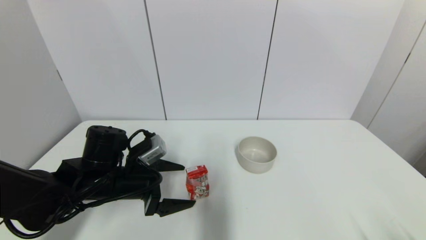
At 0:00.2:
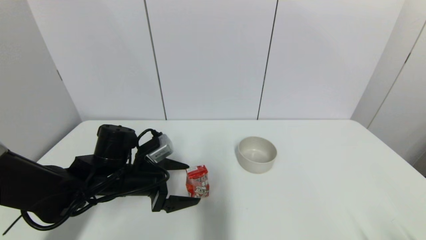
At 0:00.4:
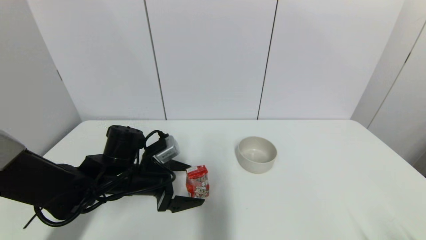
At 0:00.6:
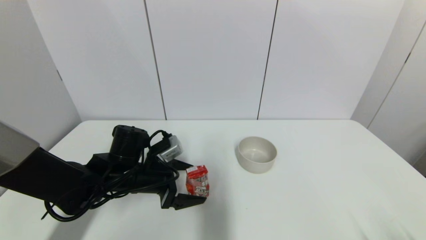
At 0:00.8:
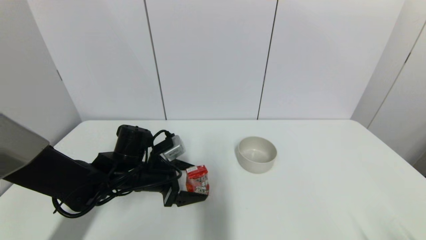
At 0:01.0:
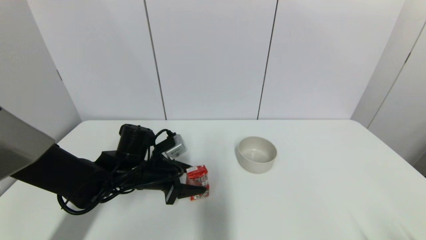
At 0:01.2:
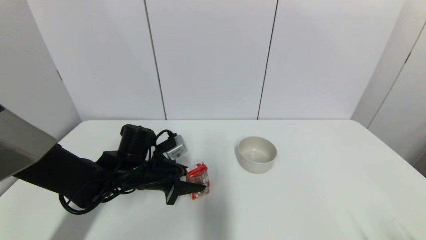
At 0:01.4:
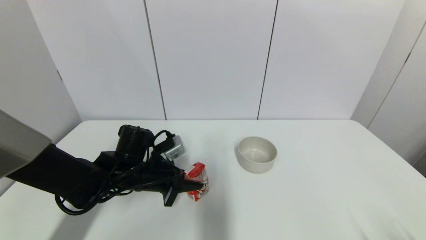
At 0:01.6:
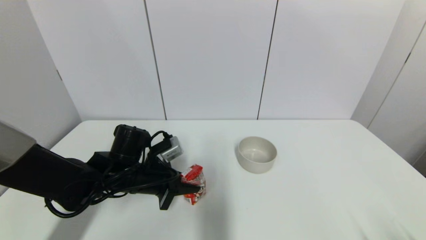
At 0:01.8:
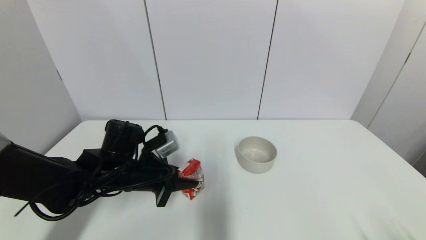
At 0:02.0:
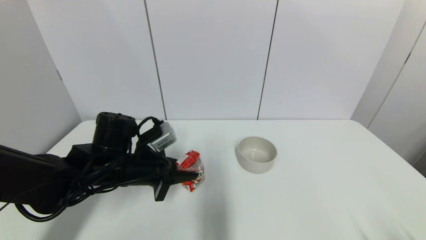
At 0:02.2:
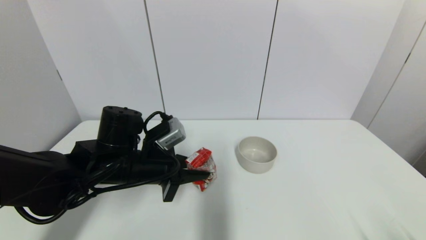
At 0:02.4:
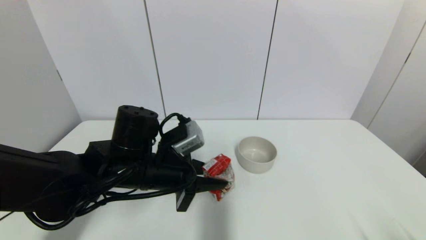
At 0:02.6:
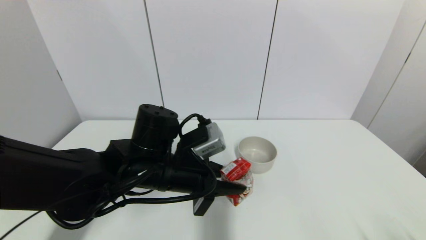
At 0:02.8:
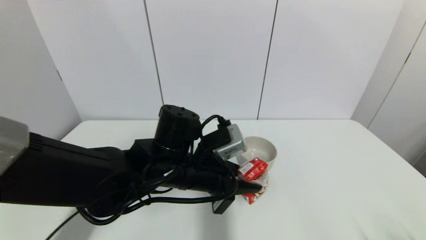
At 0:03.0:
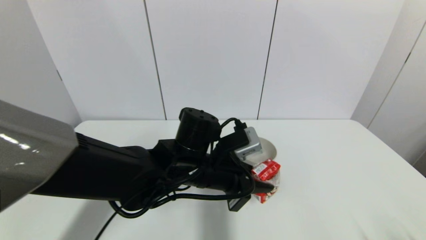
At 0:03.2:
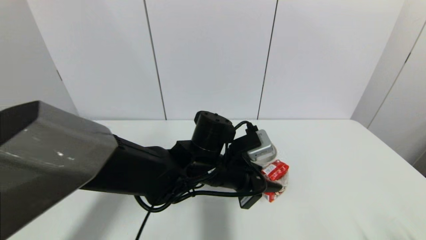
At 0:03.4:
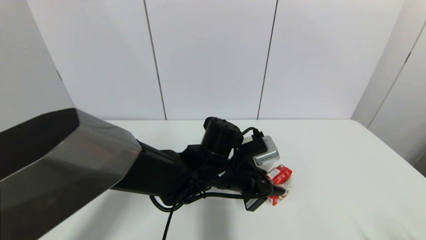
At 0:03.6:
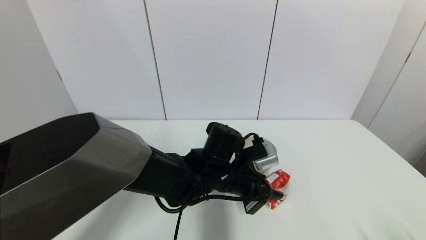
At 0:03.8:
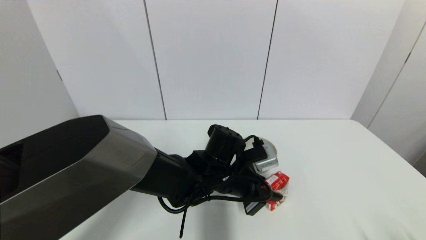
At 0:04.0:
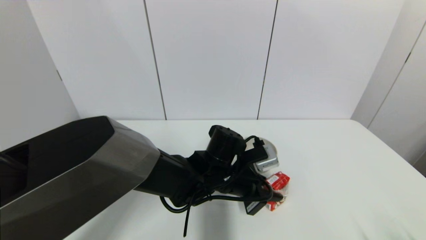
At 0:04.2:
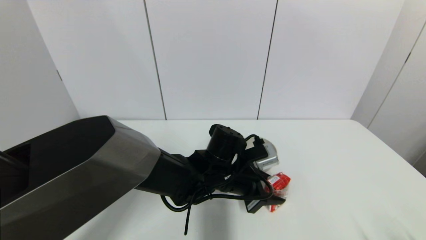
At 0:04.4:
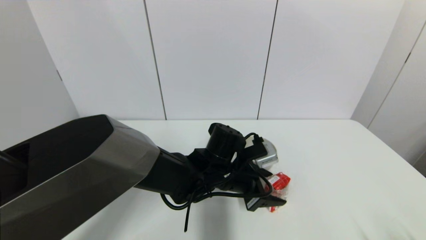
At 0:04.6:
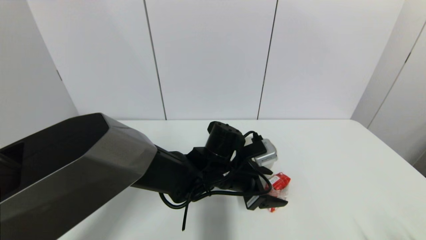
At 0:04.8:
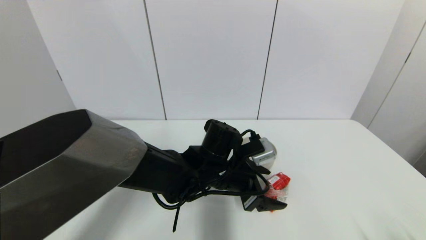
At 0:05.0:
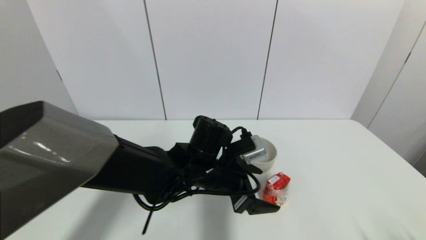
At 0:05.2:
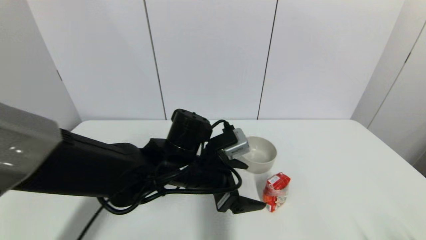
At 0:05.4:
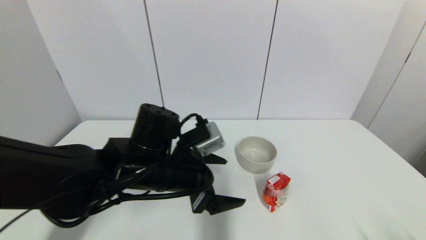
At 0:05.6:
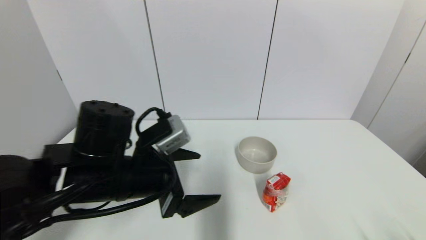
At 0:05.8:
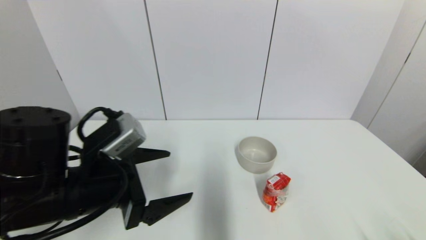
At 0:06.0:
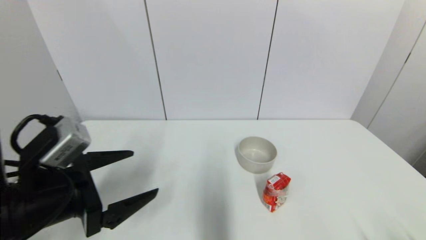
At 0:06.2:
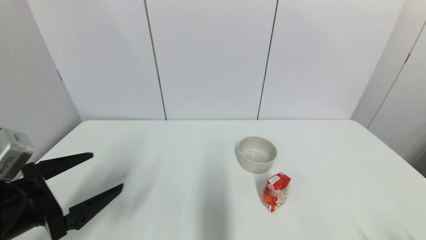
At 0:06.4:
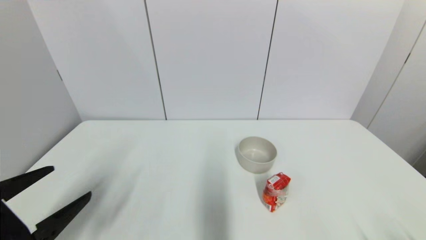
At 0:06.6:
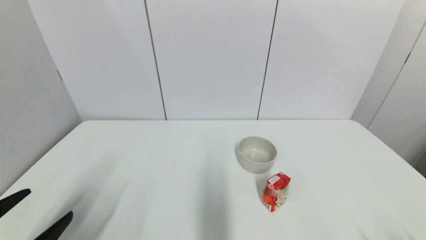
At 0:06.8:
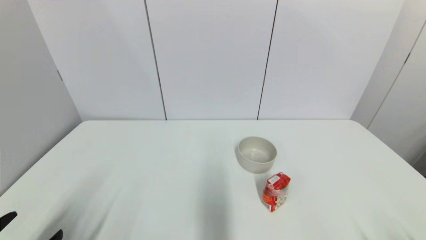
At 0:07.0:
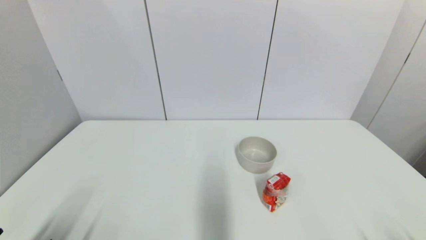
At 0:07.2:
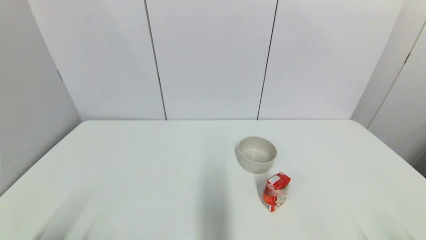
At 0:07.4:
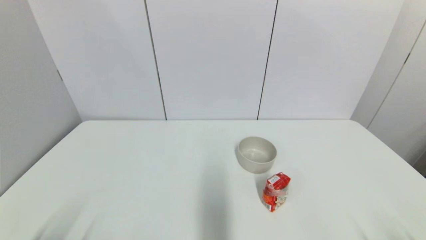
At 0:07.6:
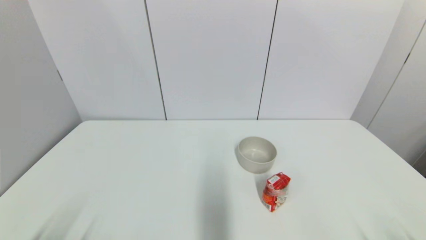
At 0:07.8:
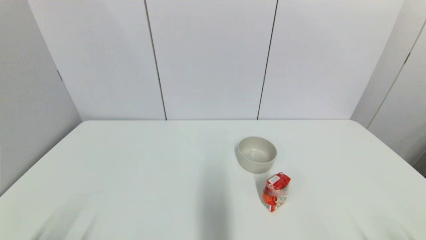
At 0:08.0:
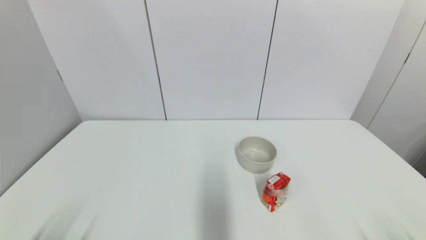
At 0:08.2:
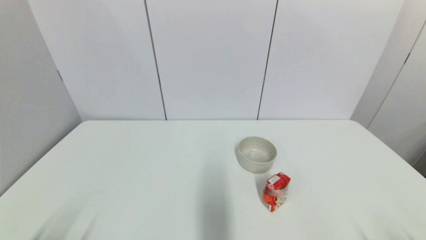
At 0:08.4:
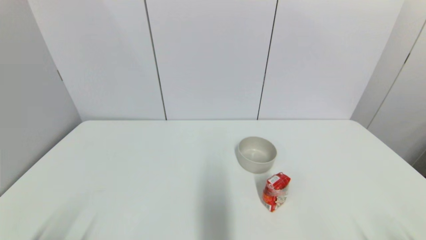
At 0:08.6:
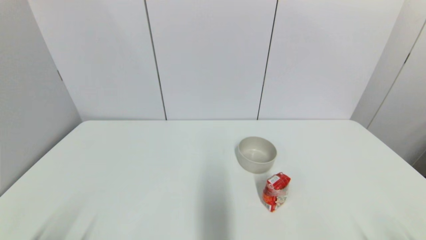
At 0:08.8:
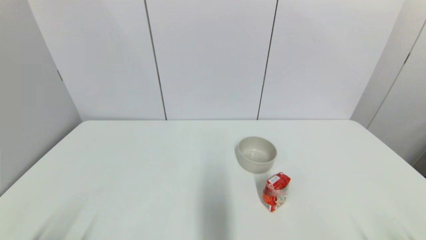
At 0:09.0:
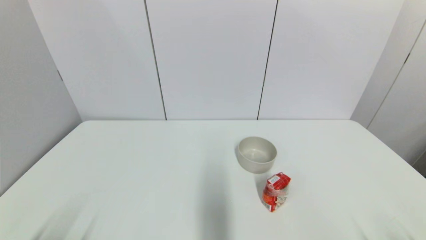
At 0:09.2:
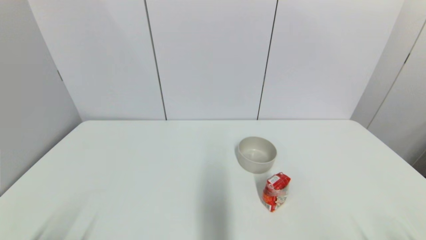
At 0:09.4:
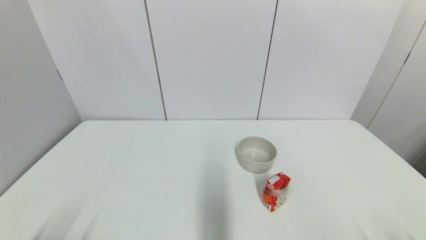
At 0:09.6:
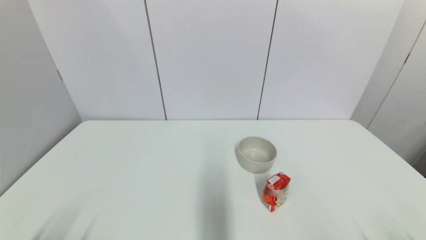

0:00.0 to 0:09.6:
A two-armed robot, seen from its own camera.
Step, 0:01.6 to 0:04.4: Place the wangzai milk on the table with left gripper.
0:00.0 to 0:01.6: The left gripper closes its fingers.
0:01.6 to 0:03.2: The left gripper is displaced to the right by some 15 cm.
0:03.2 to 0:04.8: The left gripper opens.
0:04.8 to 0:06.4: The left gripper travels to the left and backward by approximately 35 cm.
0:06.4 to 0:08.0: The left gripper shifts about 15 cm backward and downward.
0:08.0 to 0:09.6: Both grippers stay put.

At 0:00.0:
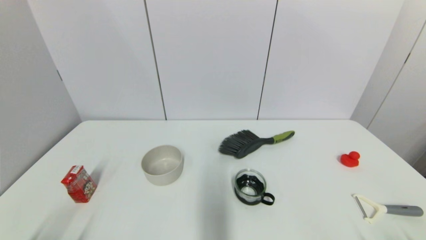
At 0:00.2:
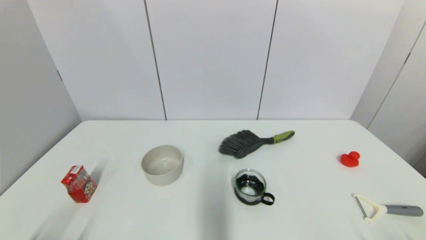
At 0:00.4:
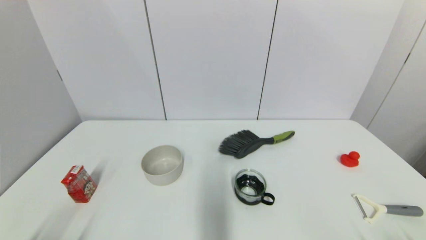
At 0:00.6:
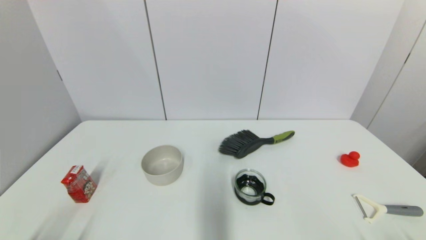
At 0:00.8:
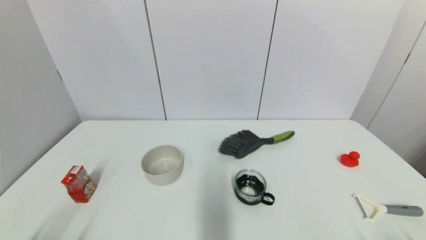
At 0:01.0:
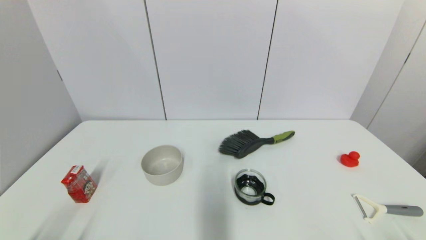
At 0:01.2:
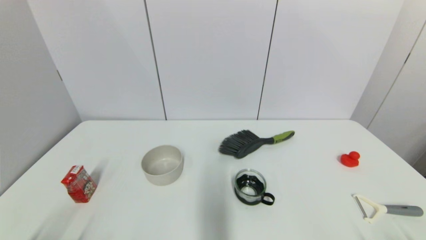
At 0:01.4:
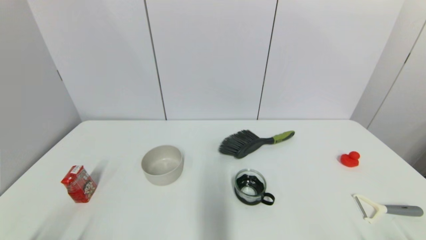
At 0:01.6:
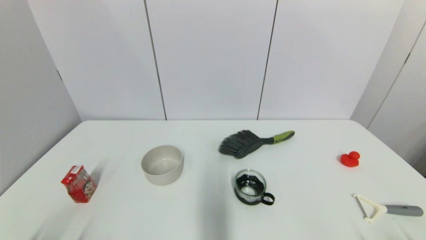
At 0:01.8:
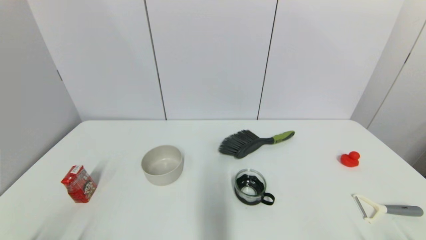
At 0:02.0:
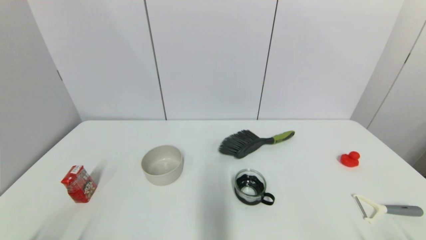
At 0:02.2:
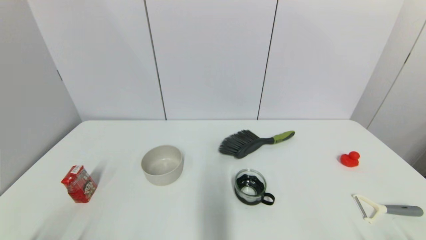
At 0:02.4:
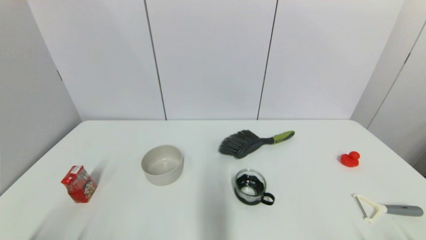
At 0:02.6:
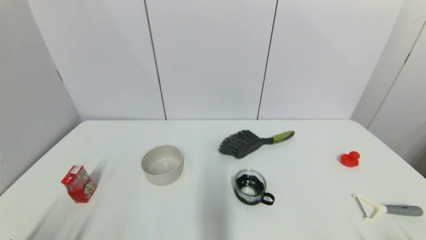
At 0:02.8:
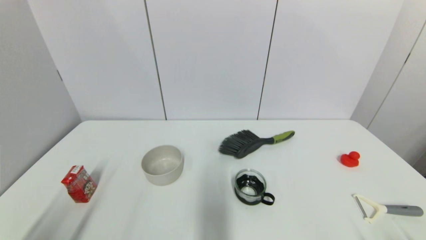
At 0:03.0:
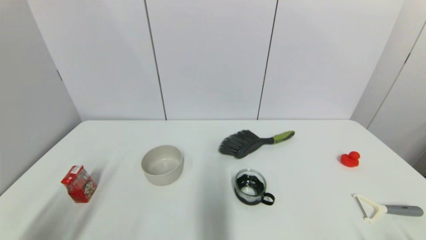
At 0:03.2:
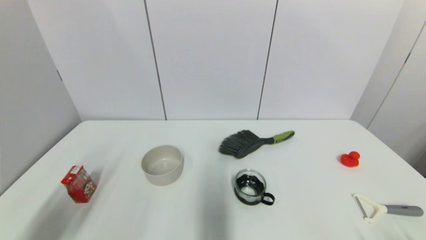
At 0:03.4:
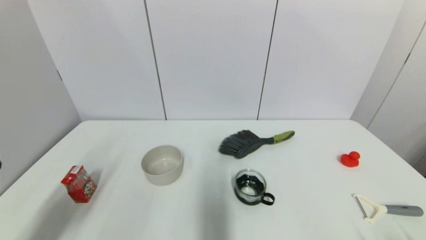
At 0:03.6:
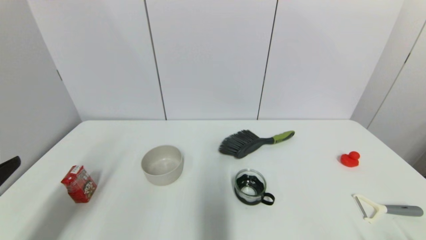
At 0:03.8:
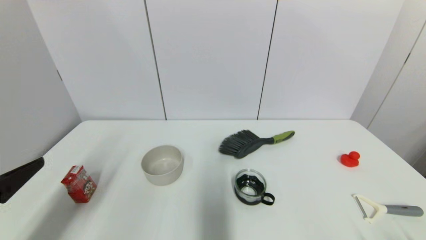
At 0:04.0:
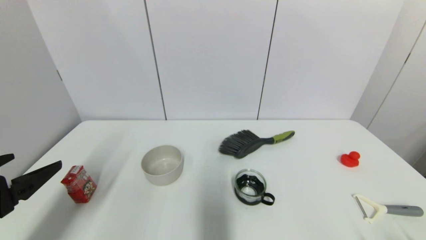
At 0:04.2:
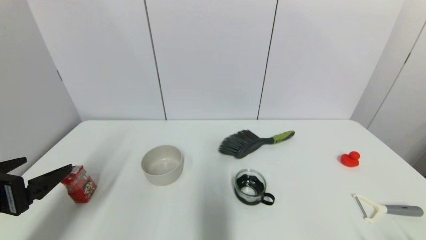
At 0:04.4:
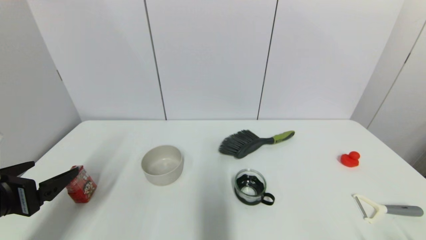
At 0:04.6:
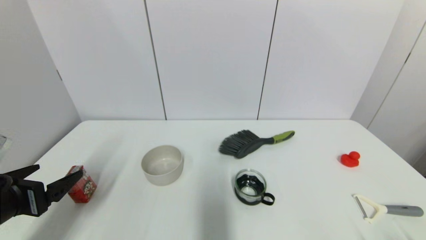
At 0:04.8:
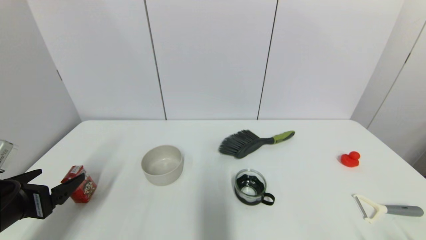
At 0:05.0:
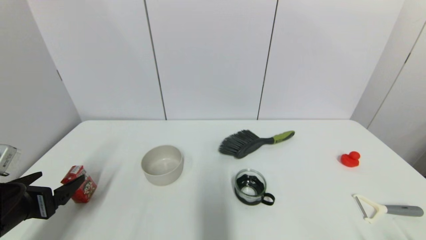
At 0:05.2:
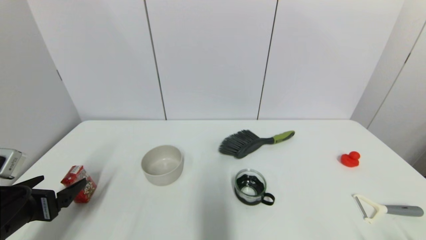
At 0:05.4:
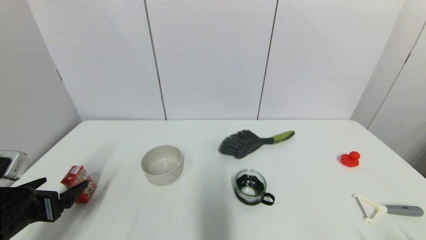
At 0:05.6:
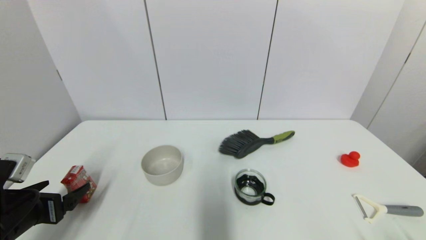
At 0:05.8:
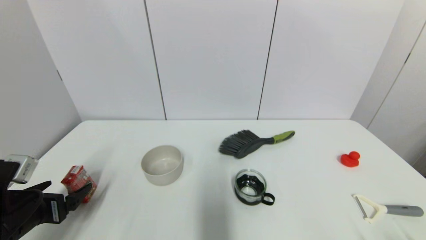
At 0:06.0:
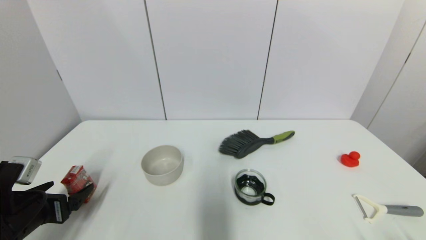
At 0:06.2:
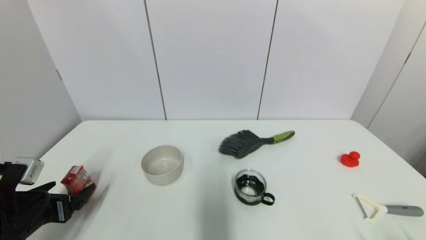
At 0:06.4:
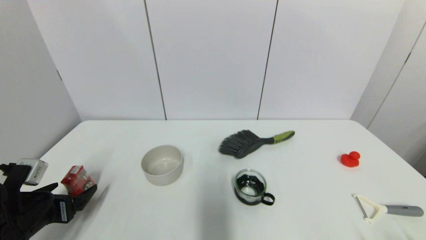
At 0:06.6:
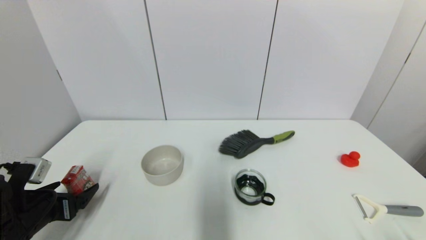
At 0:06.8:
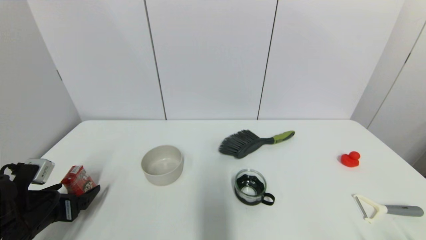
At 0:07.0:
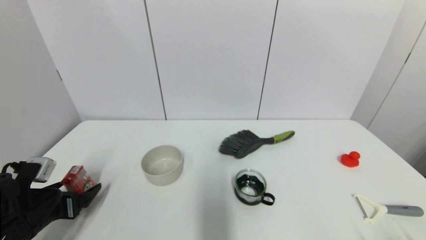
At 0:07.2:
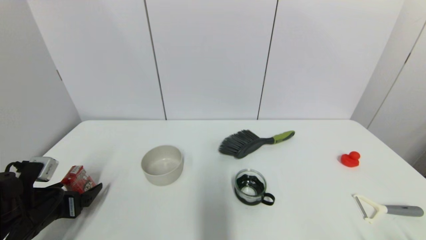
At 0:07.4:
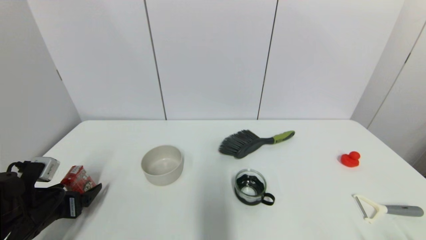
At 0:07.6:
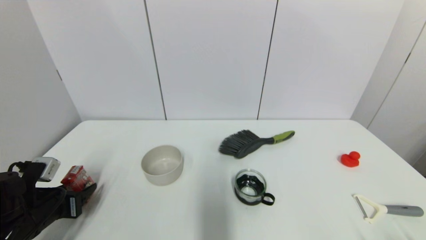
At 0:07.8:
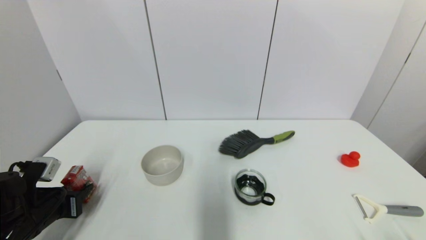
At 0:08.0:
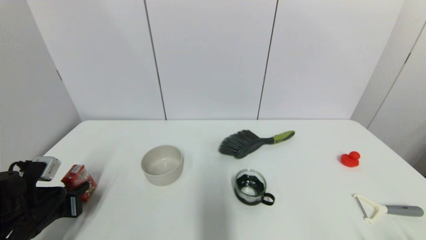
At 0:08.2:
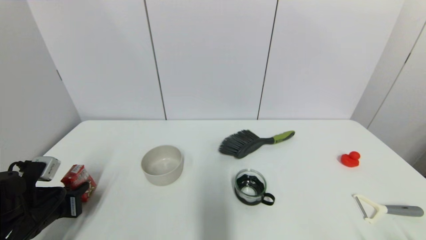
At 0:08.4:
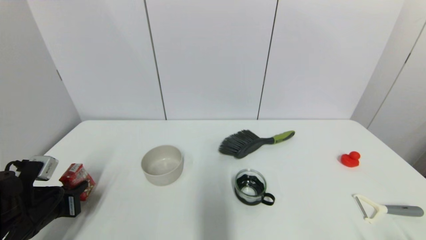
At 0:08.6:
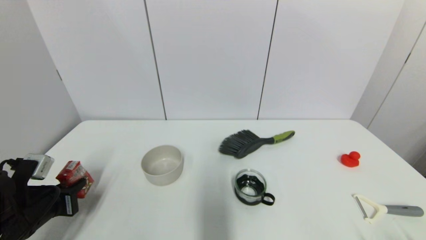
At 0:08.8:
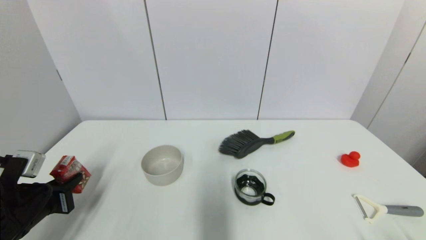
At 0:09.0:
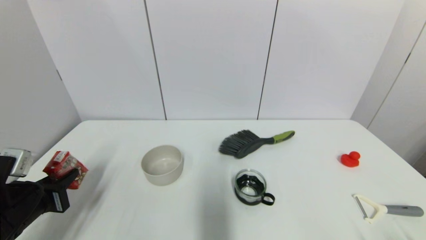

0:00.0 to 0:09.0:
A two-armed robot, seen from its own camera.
Step, 0:03.4 to 0:08.2: Grasp the wangzai milk with left gripper.
0:00.0 to 0:01.6: Neither gripper changes place.
0:01.6 to 0:03.0: The left gripper is displaced upward by roughly 10 cm.
0:03.0 to 0:04.4: The left gripper goes some 15 cm forward.
0:04.4 to 0:06.0: The left gripper shifts about 10 cm downward.
0:06.0 to 0:07.6: The left gripper closes its fingers.
0:07.6 to 0:09.0: The left gripper closes its fingers.
